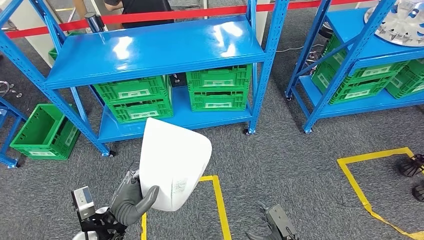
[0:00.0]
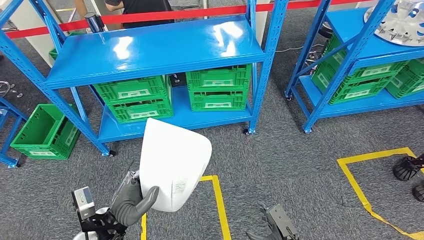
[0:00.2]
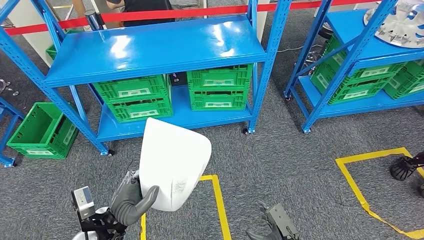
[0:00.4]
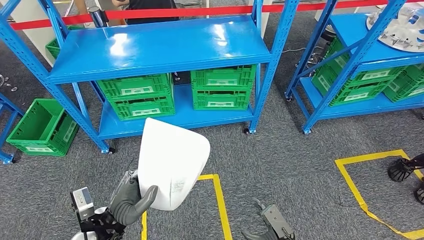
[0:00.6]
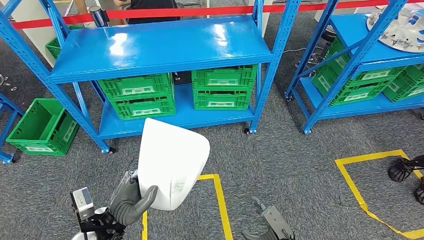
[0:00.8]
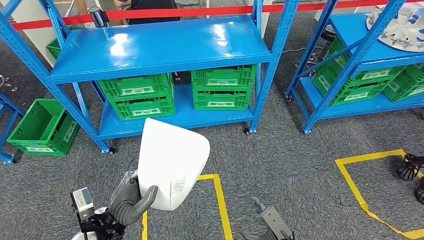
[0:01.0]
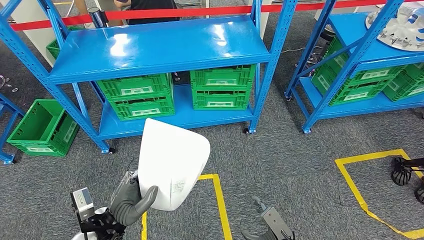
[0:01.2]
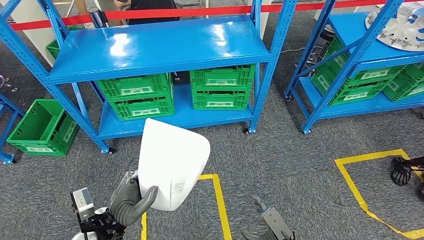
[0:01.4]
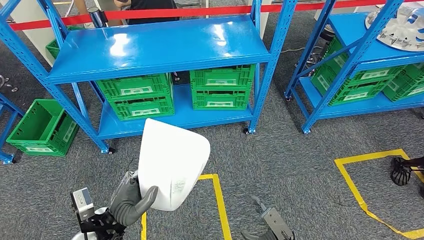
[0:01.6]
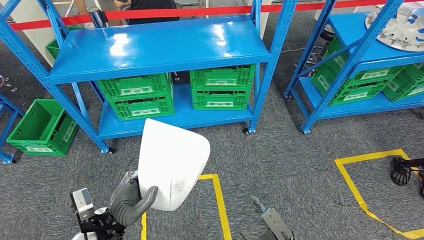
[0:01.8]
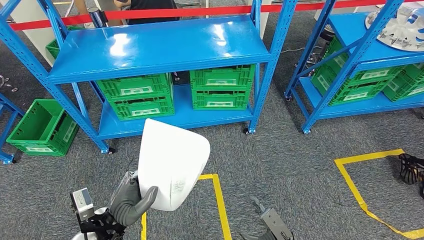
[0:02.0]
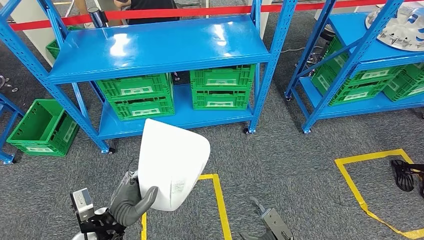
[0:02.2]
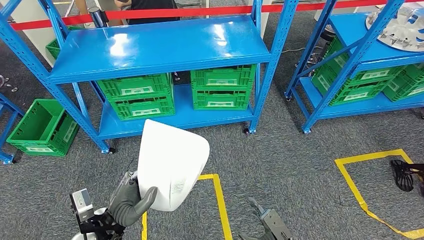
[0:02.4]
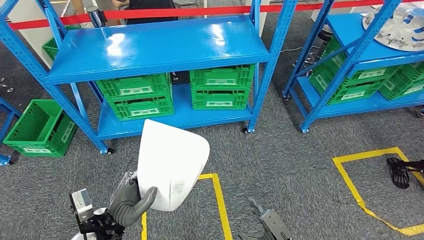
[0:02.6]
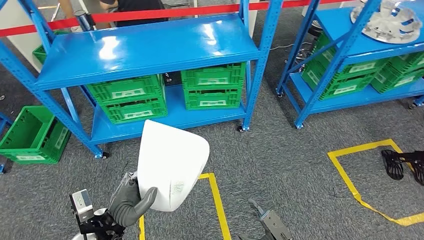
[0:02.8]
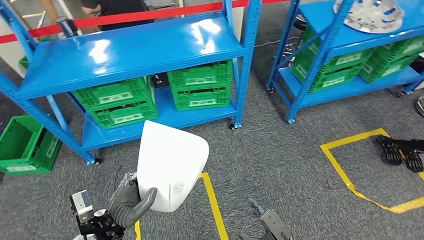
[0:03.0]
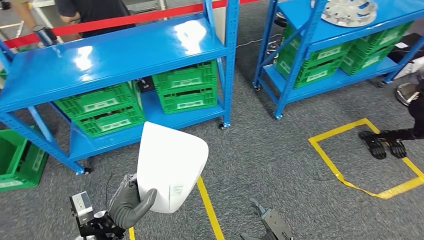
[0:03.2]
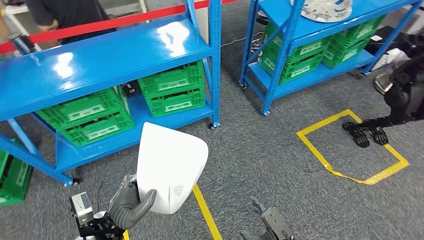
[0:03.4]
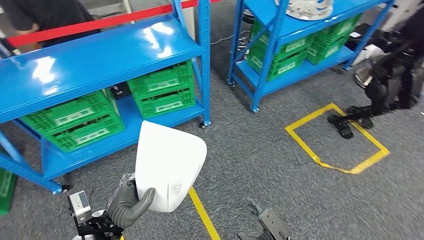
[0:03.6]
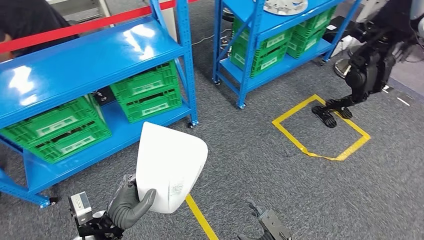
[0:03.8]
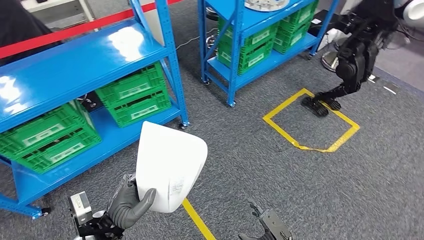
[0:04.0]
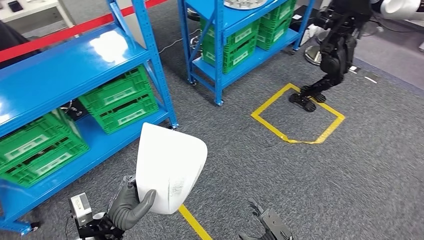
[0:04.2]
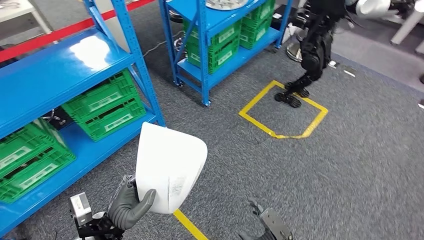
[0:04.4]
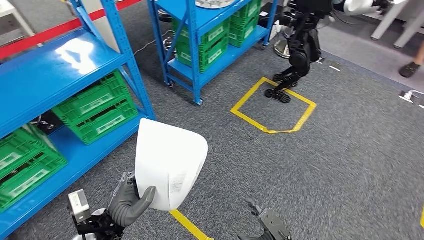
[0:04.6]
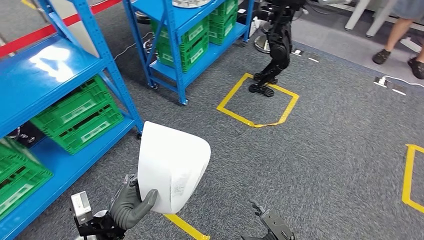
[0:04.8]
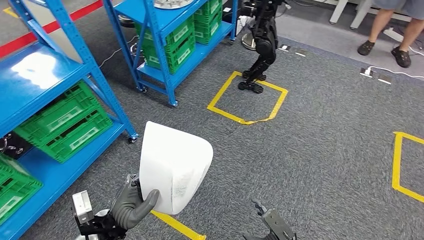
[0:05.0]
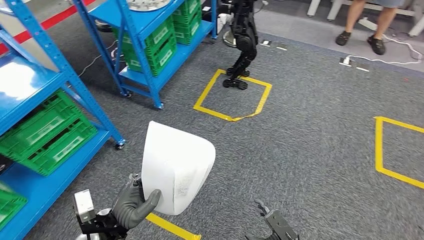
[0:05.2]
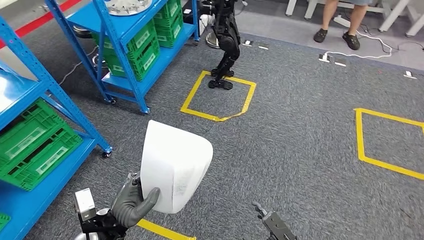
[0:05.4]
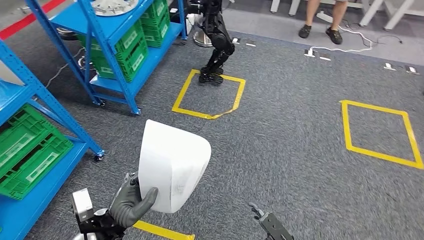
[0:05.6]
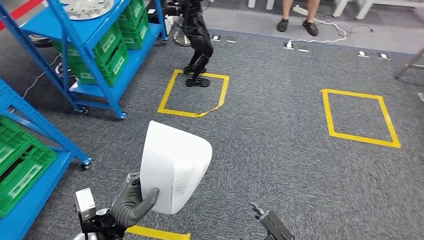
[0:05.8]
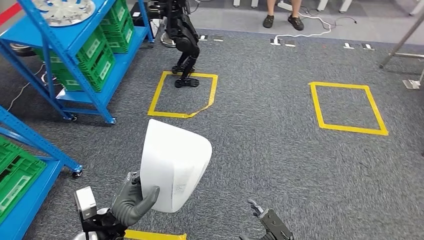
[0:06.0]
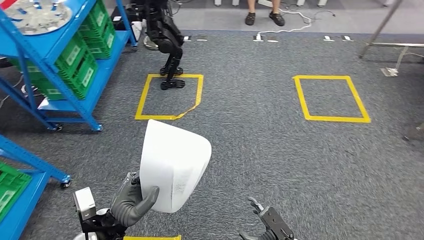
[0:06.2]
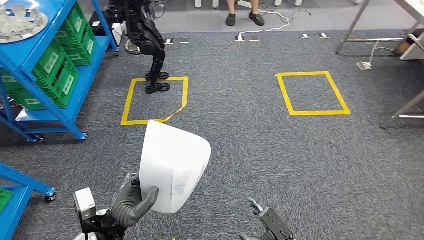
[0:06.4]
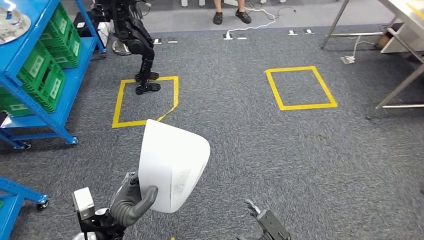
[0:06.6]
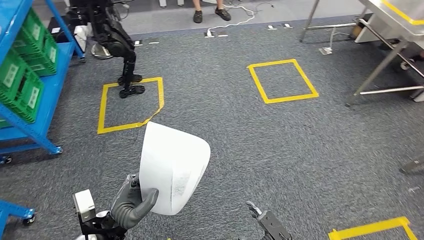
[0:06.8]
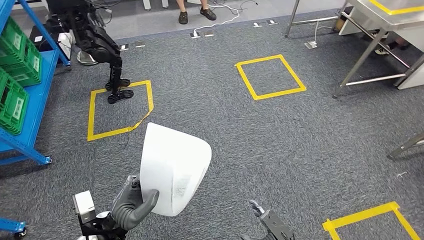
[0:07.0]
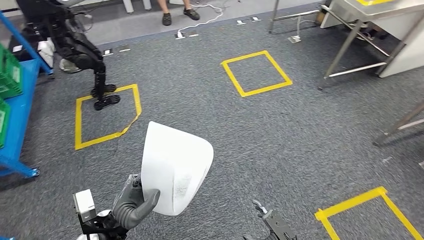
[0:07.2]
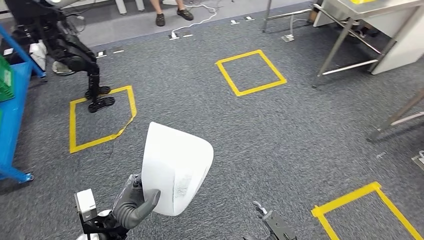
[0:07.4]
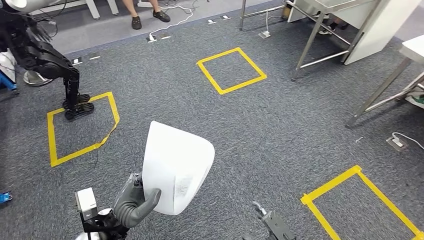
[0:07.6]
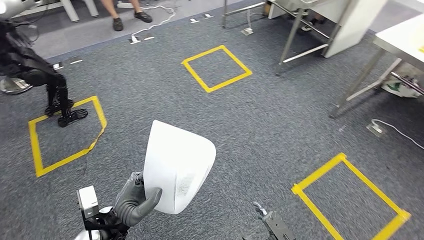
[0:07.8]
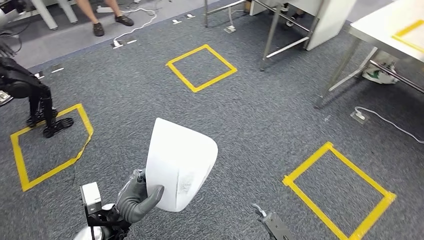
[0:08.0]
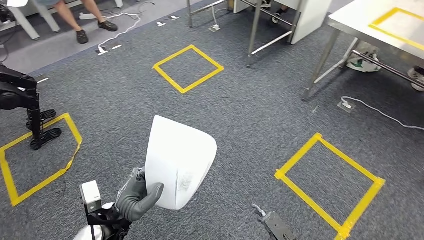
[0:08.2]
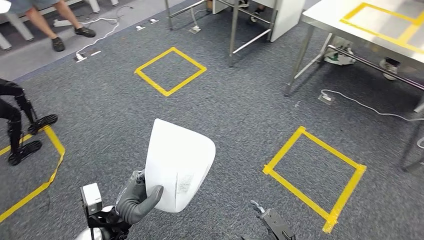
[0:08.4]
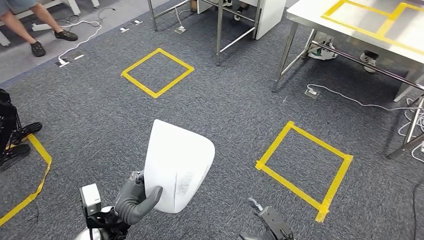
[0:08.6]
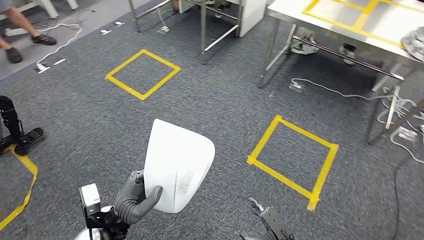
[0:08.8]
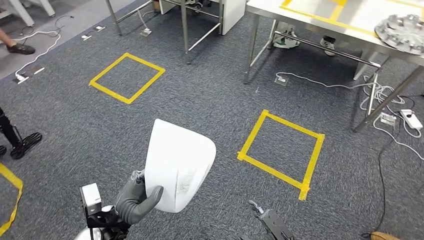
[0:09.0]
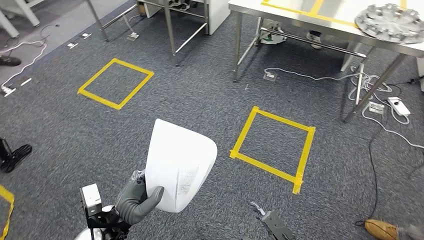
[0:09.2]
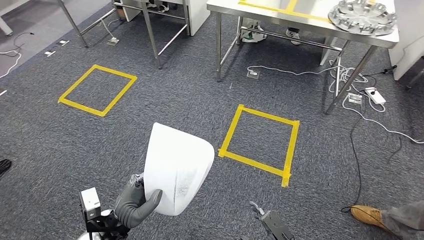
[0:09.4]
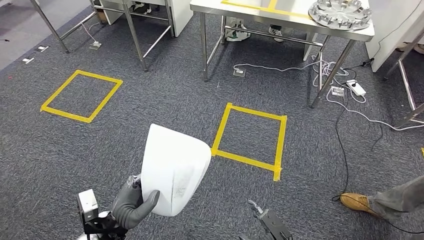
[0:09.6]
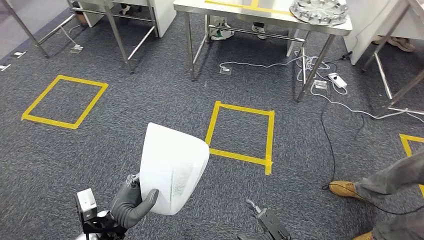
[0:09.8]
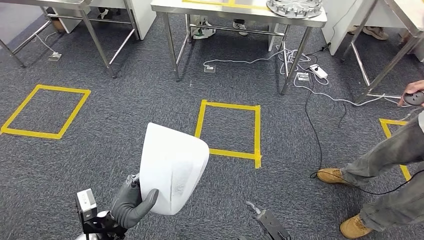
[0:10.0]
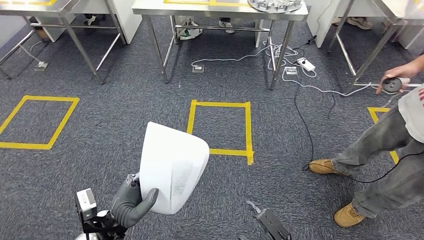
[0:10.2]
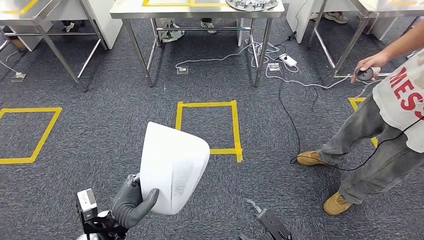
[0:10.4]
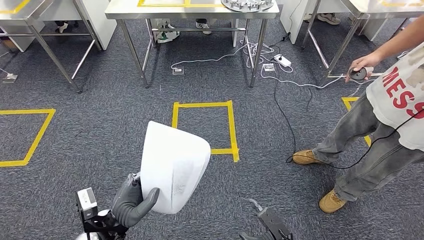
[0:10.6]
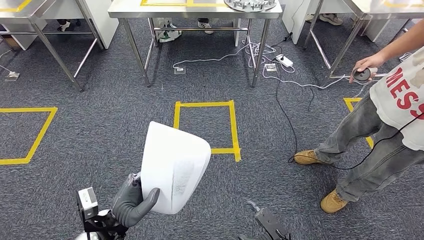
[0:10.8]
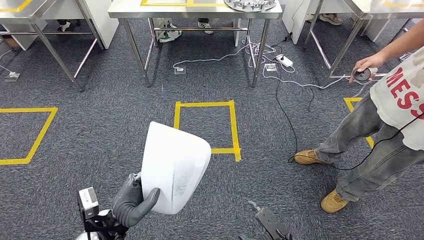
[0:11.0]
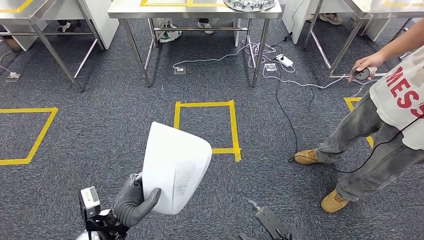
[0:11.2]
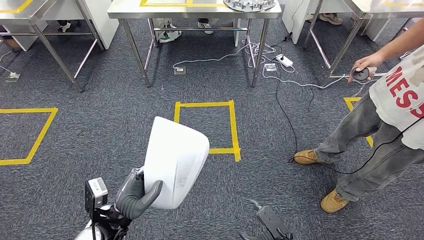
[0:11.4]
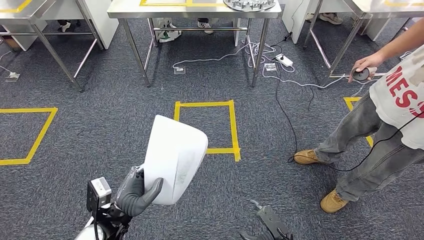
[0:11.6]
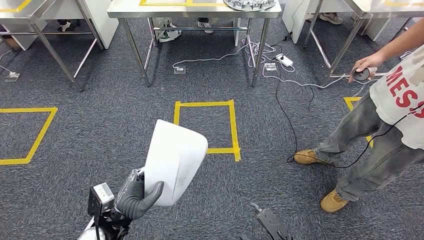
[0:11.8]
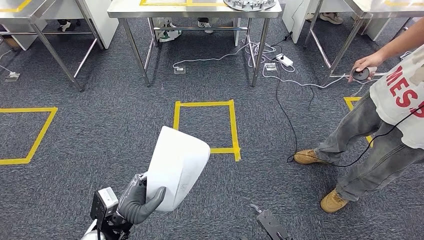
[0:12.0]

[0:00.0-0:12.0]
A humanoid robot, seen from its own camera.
0:10.4 to 0:12.0: There are only small adjustments of the hands.

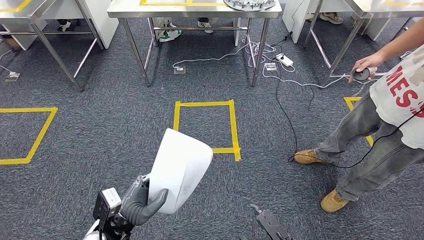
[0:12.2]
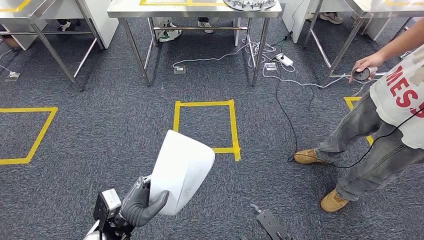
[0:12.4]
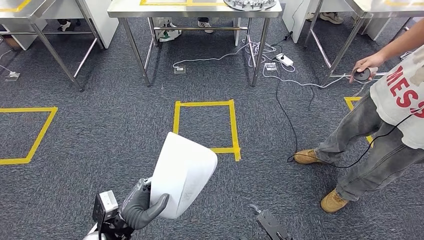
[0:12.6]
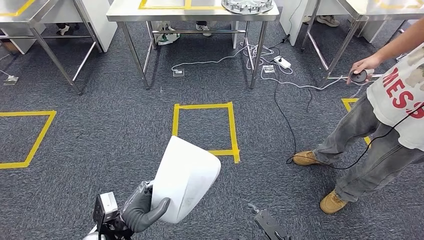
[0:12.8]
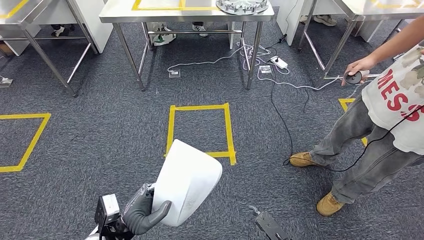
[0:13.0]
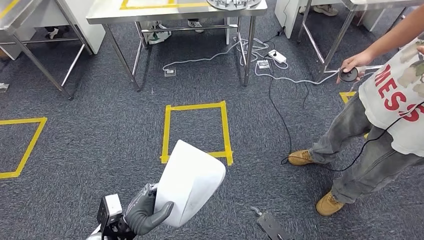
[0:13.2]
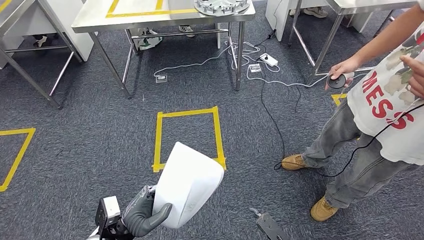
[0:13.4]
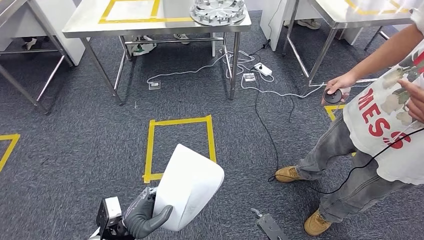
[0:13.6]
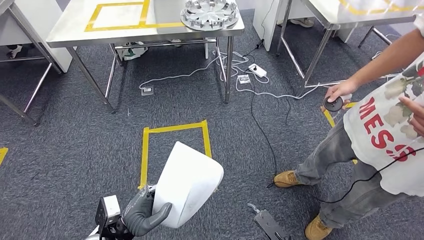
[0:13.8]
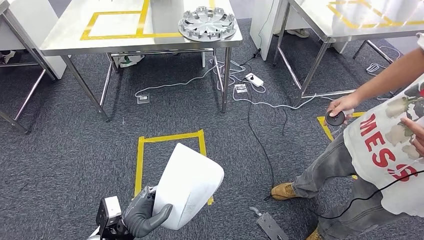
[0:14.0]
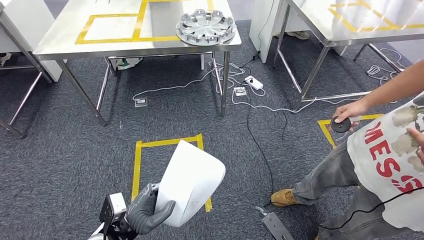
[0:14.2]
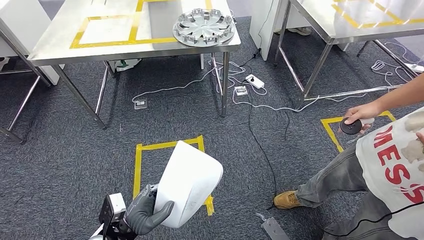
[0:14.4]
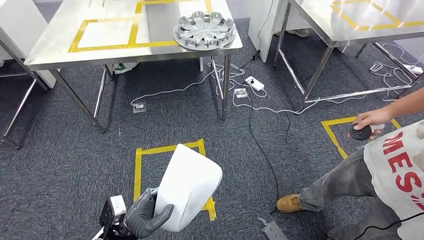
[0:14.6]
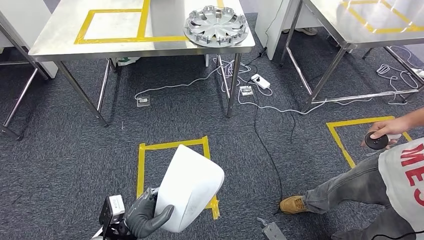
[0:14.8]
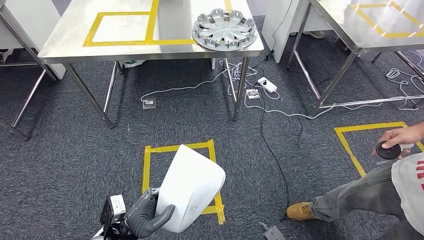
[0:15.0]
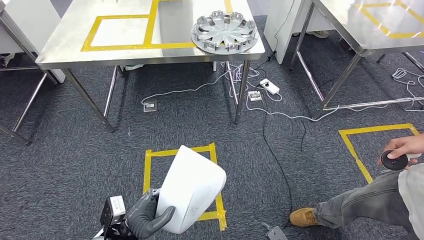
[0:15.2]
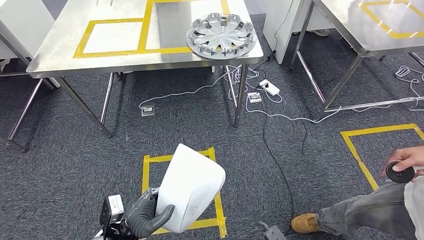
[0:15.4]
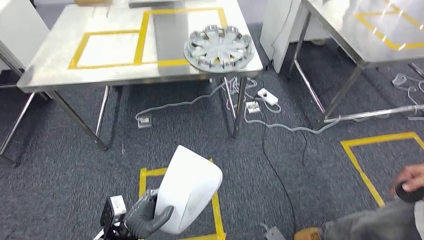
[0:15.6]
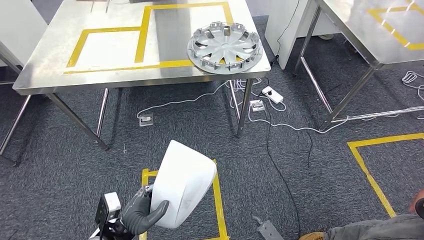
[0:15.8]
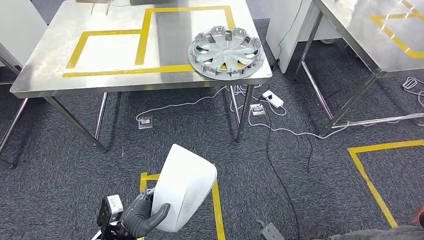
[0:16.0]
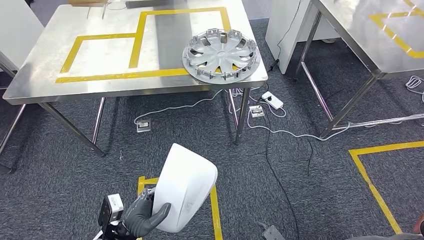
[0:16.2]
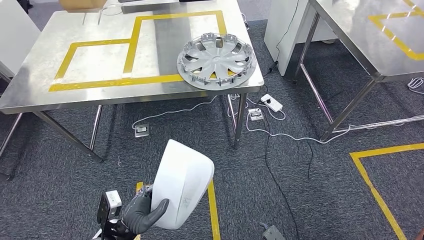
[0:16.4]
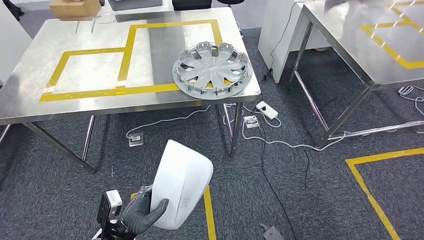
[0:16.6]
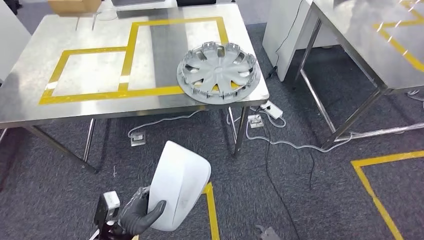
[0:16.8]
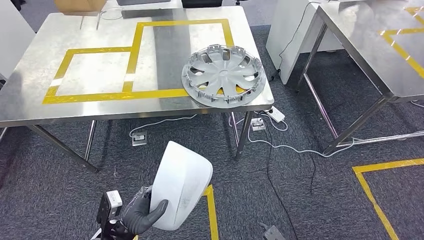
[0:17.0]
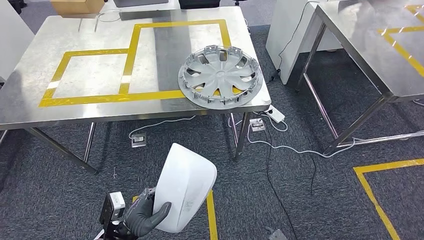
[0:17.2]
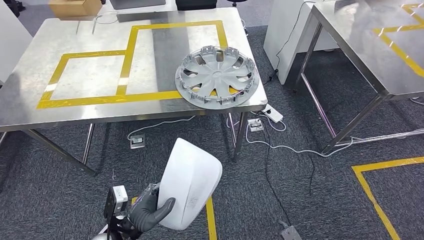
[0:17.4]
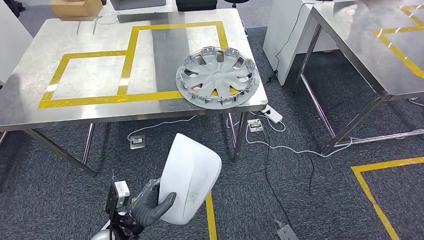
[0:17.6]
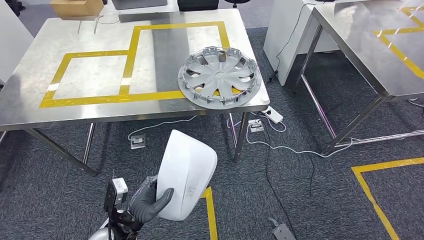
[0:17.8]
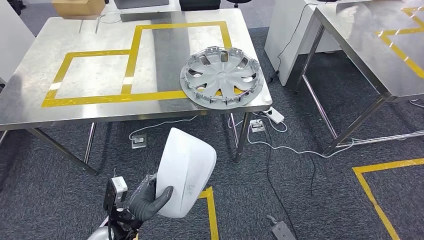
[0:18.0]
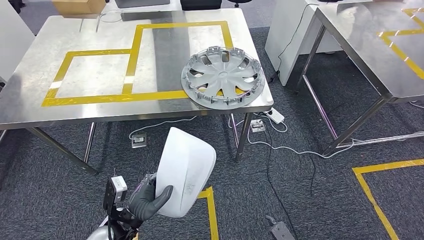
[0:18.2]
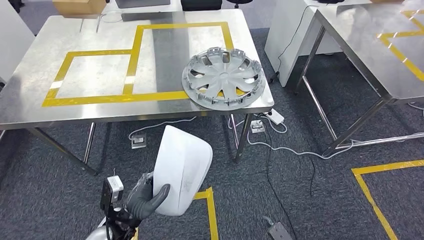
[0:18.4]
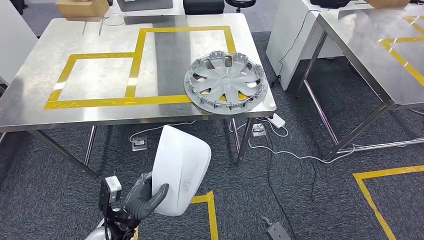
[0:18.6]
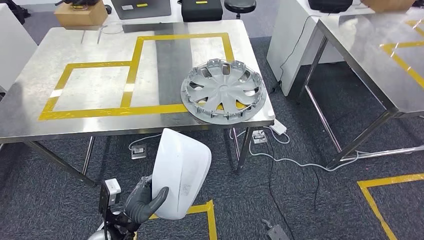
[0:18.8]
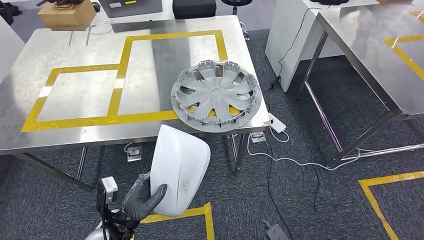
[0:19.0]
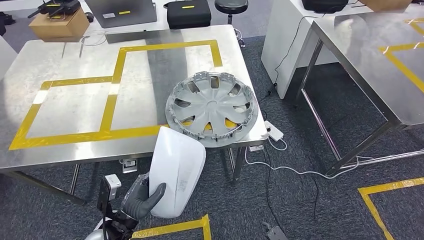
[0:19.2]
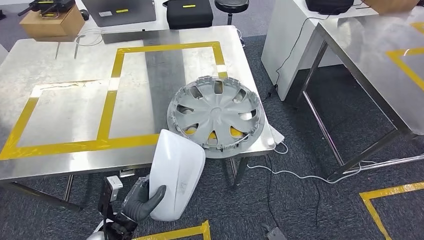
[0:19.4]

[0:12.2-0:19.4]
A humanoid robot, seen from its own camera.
Step, 0:12.2 to 0:19.0: Move the small component to the workbench.
